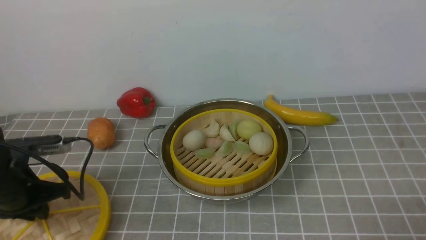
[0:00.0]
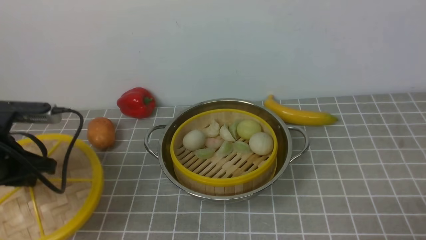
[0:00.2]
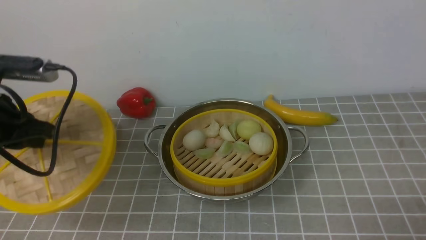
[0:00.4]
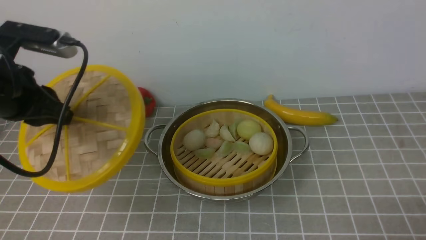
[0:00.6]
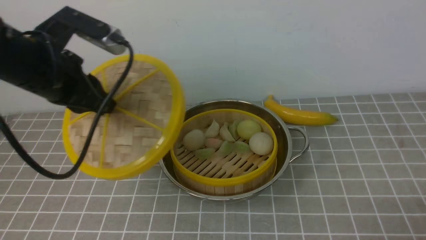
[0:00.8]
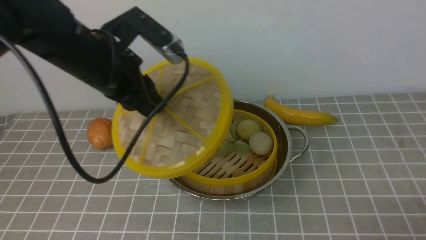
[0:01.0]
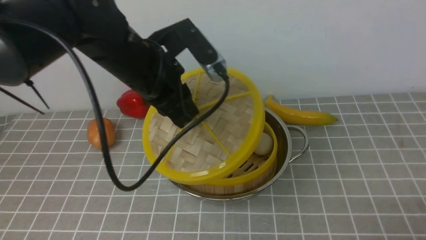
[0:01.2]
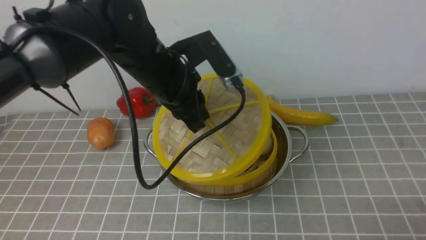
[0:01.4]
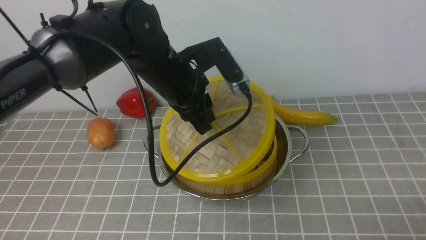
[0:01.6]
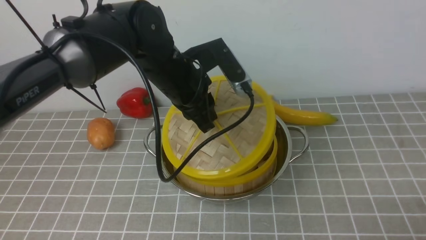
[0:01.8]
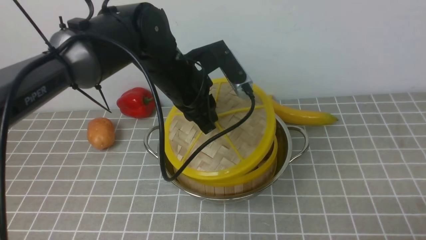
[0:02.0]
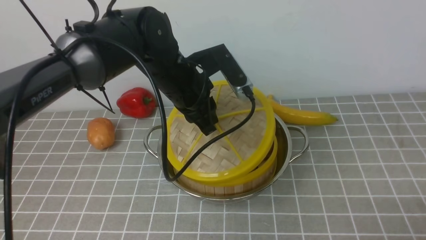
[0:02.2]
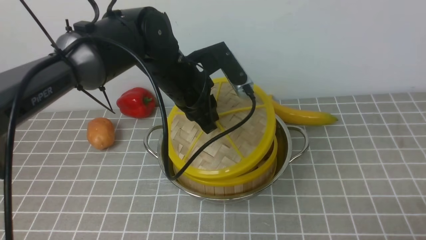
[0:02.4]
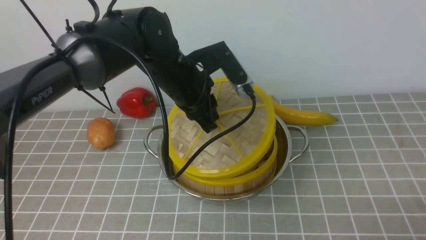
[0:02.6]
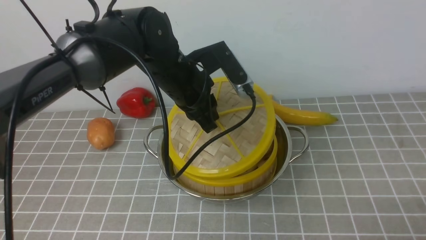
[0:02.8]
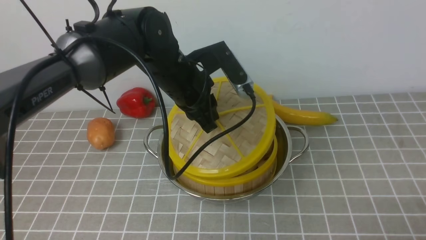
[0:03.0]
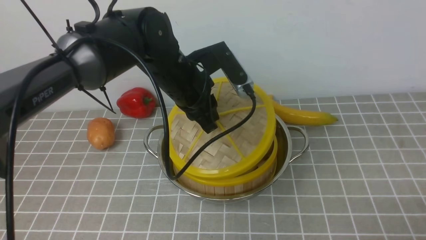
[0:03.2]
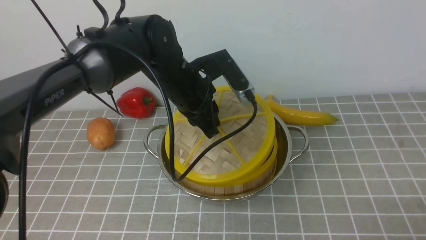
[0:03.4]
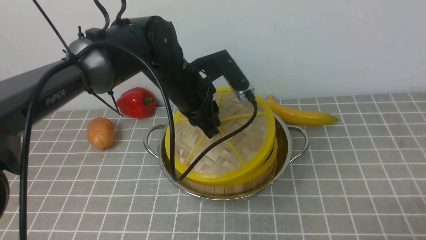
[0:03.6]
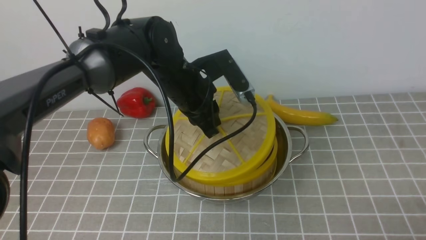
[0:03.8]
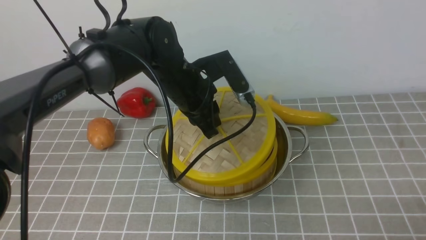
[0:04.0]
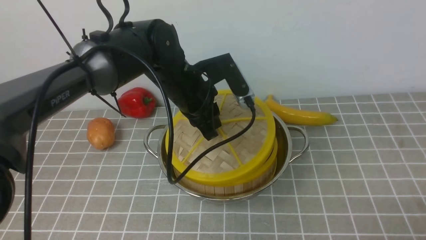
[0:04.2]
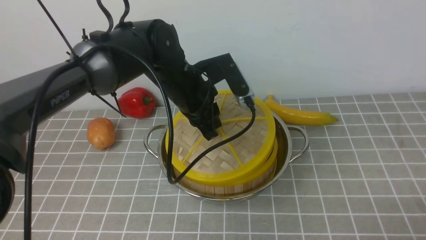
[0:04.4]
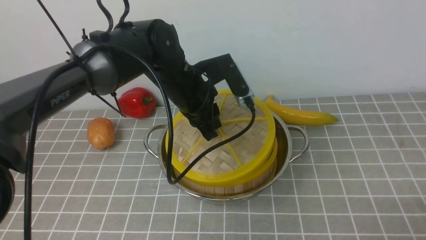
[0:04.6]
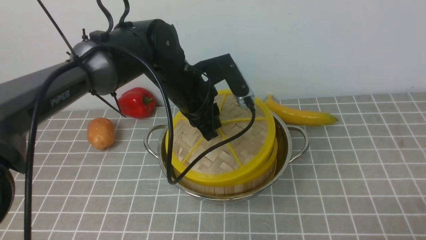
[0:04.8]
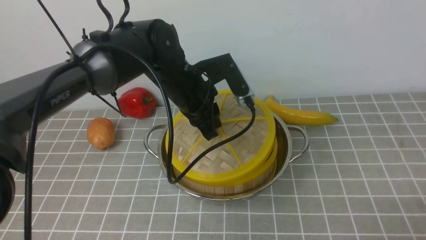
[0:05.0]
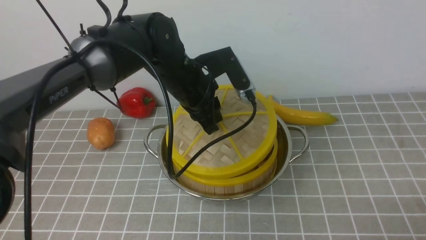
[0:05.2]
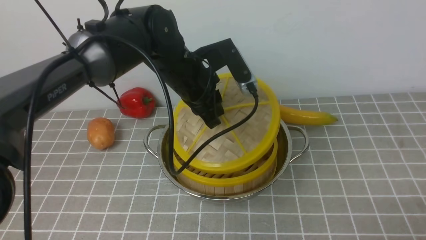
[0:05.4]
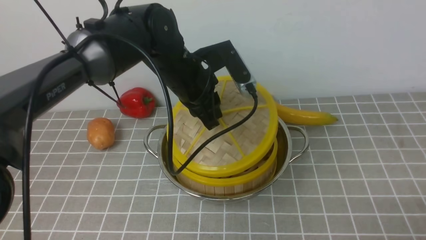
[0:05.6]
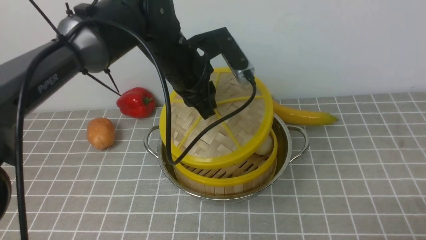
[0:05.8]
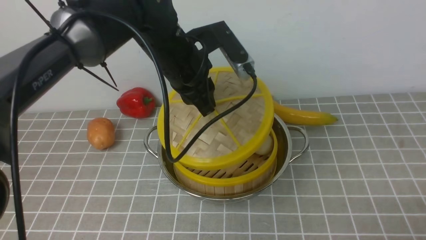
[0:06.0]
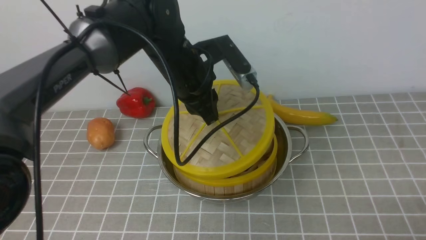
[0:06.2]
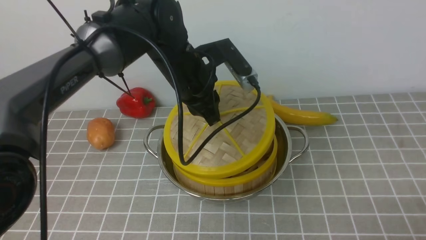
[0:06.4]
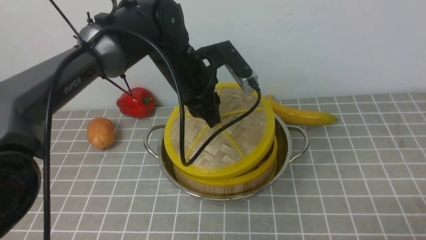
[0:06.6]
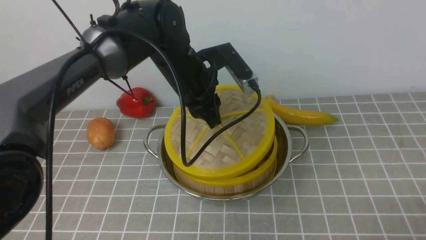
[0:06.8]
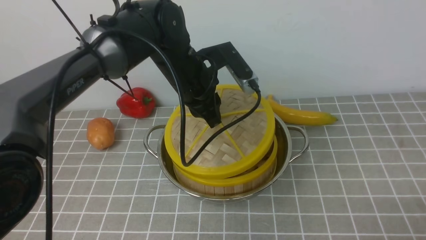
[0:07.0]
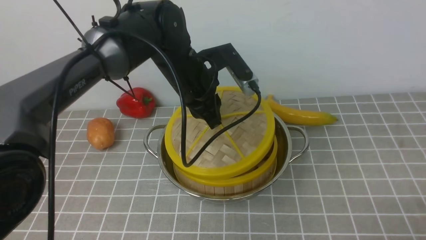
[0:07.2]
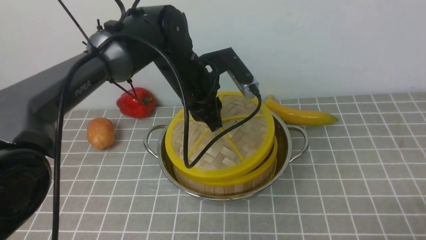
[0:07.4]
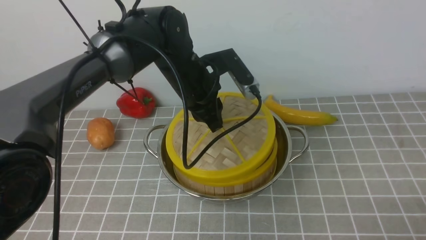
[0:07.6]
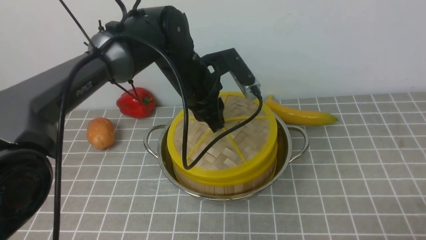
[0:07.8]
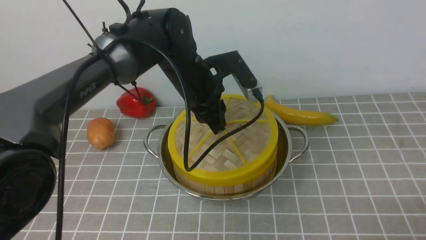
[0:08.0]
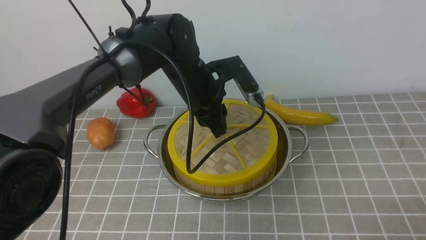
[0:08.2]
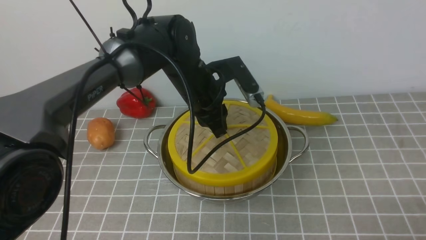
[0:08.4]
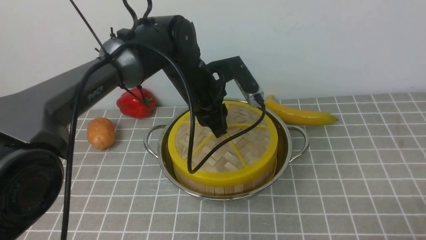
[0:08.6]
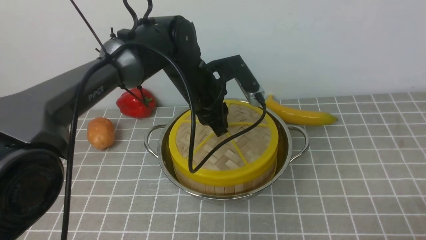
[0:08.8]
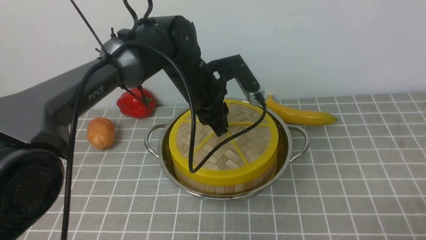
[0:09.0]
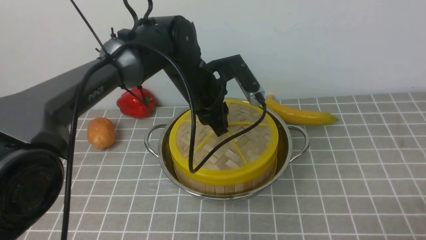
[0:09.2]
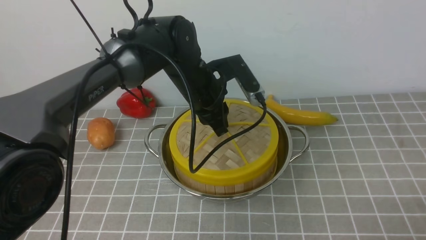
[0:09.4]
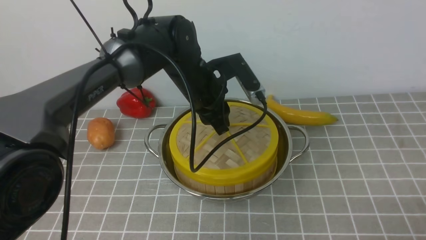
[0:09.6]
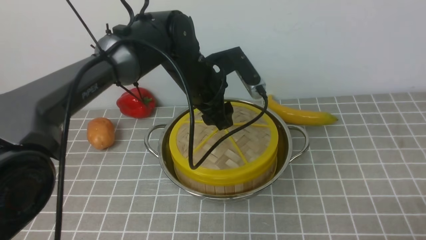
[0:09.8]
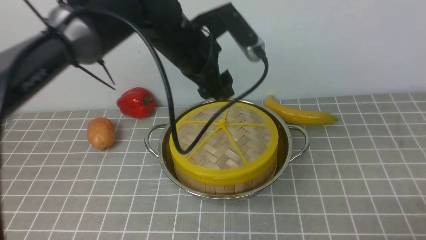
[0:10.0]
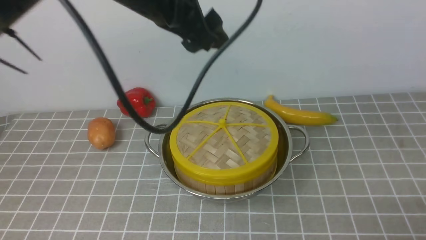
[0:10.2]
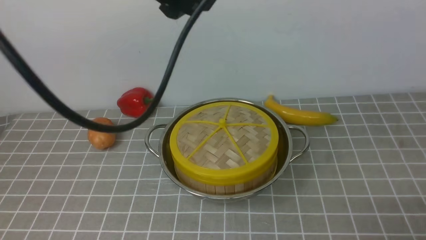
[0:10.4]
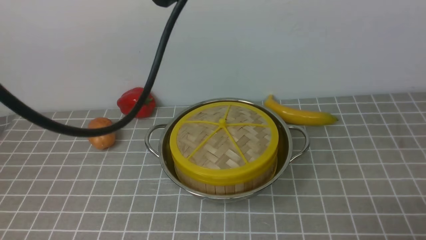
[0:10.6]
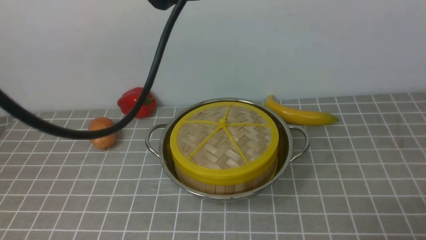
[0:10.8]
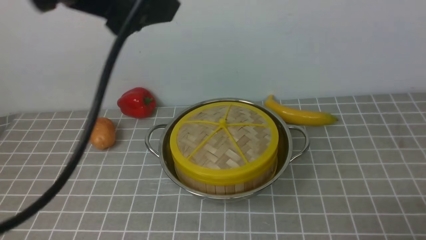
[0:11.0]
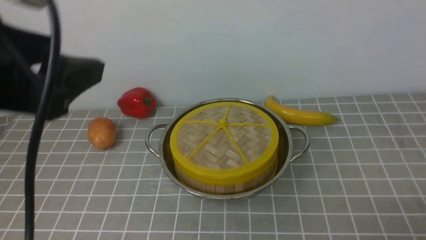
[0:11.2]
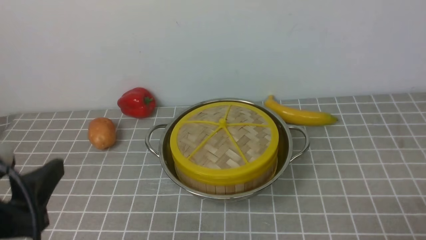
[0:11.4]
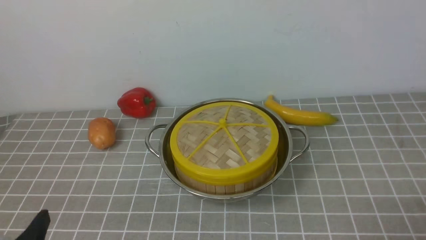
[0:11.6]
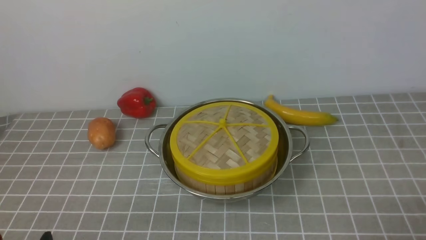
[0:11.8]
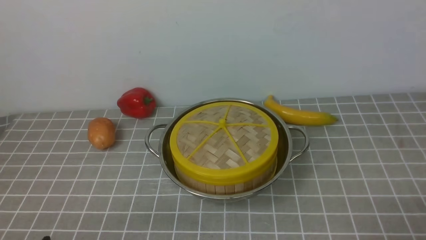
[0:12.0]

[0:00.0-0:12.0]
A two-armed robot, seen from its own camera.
Task of the whole recording: place the steamer in the pot on the grey tablecloth, and put the lid on the steamer.
Step, 0:00.2 to 0:09.8: use the left arm to place the steamer lid on the steamer.
0:00.0 to 0:01.6: The left gripper is displaced to the right, upward and forward by roughly 25 cm.
0:01.6 to 0:04.4: The grippers stay close to where they were, moving slightly.
0:07.6 to 0:09.0: There are only small adjustments of the grippers.
0:09.0 to 0:10.4: The left gripper travels upward and backward by approximately 20 cm, and opens its fingers.
0:10.4 to 0:12.0: The left gripper shifts approximately 40 cm backward, downward and to the left.

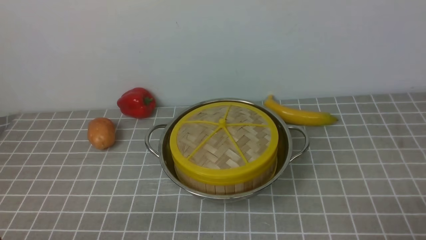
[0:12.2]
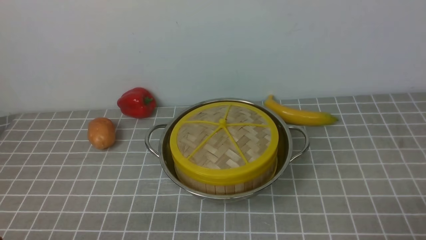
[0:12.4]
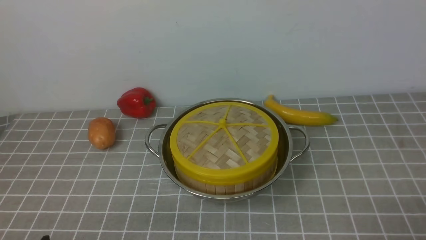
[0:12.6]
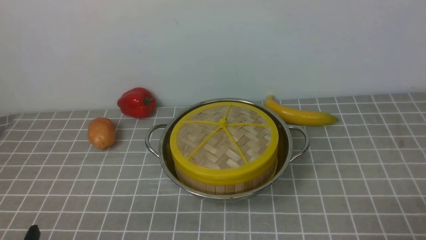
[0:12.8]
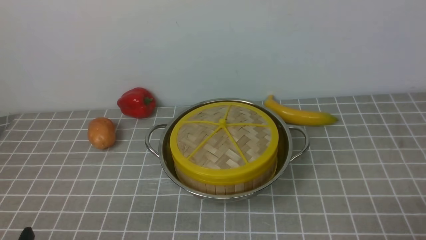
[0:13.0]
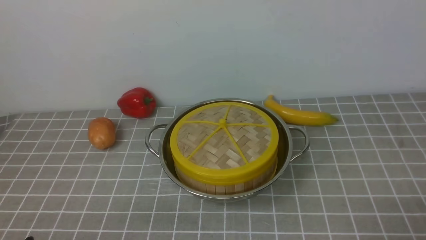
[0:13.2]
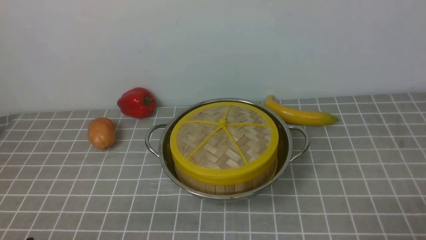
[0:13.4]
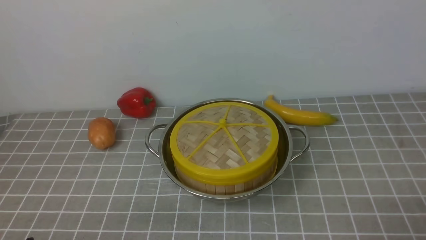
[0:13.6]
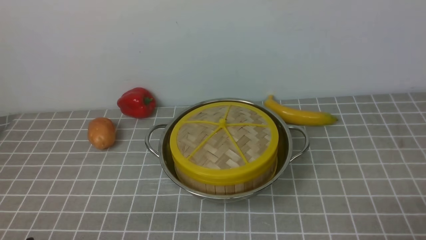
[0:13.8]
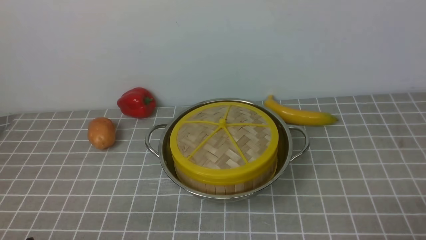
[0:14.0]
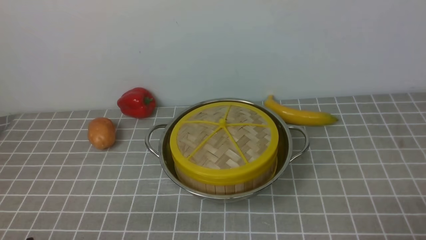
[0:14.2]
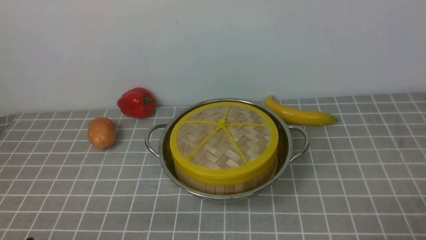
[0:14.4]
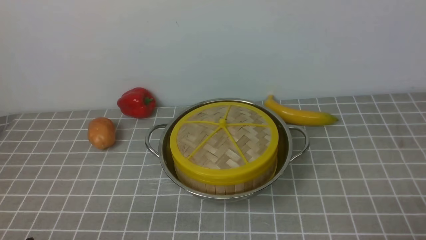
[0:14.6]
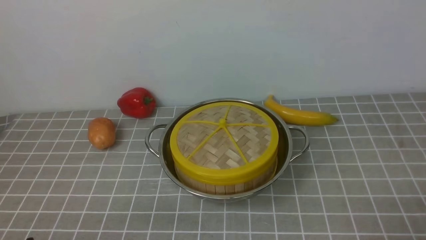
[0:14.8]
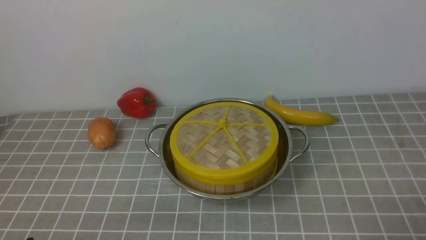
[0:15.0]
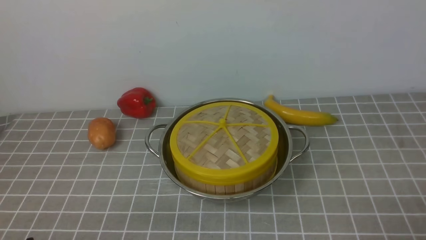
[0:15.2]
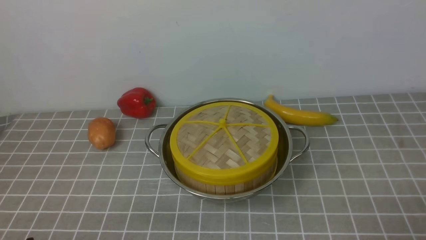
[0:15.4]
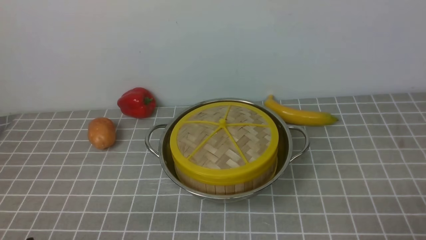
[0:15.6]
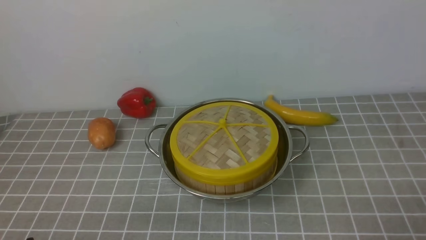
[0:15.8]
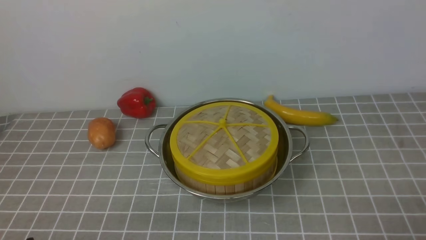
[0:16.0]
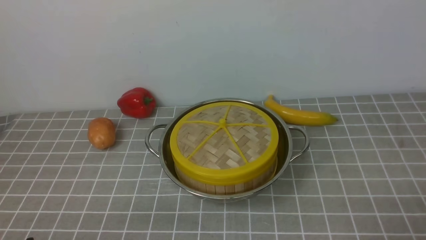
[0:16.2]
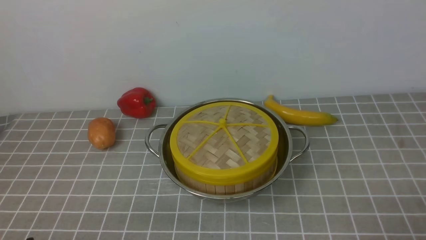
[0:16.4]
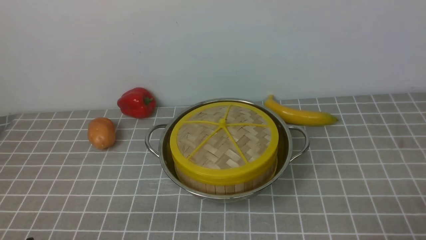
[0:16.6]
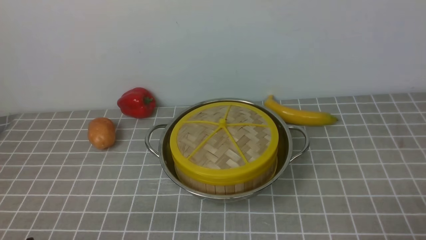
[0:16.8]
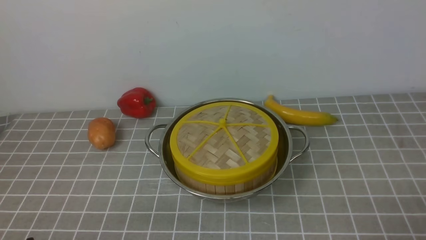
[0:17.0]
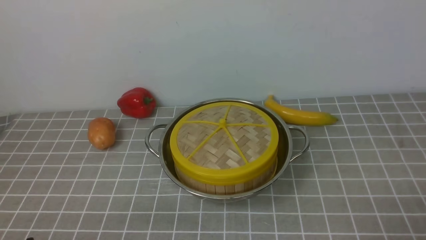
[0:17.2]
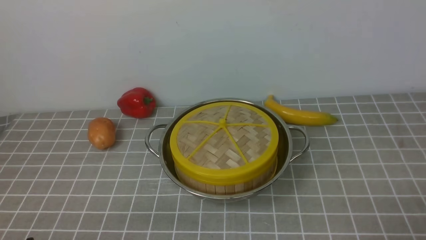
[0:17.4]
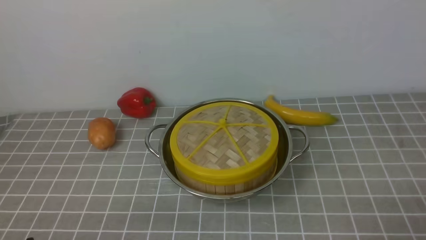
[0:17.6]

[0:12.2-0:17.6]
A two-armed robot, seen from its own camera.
Task of the whole recording: place the steamer in the pot on the grey tablecloth, and put the lid on the steamer.
0:15.0 to 0:17.6: Neither gripper changes place.
